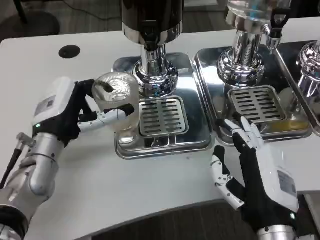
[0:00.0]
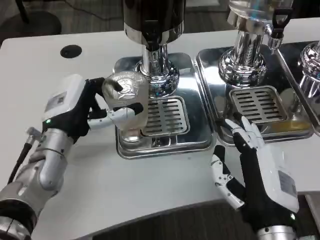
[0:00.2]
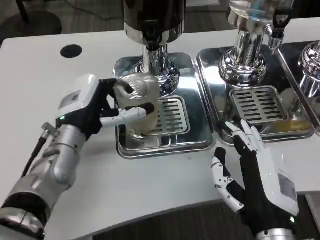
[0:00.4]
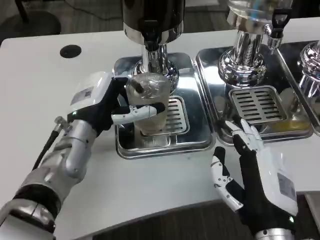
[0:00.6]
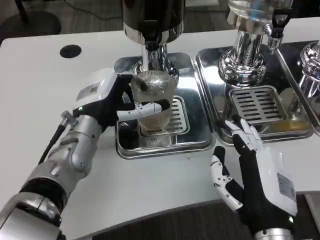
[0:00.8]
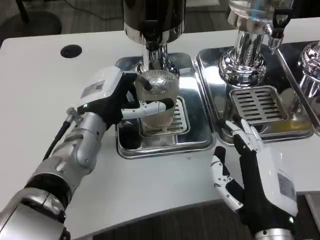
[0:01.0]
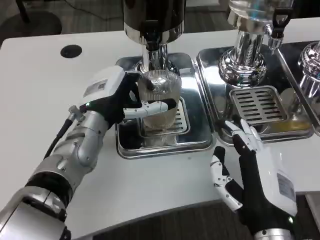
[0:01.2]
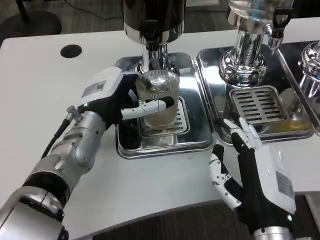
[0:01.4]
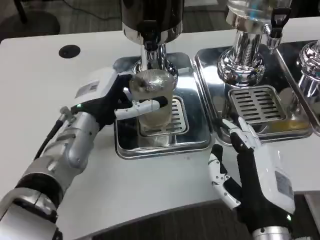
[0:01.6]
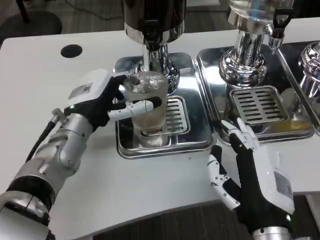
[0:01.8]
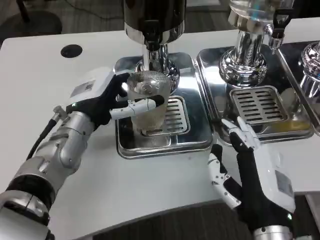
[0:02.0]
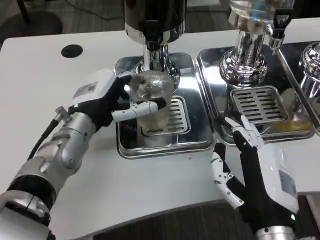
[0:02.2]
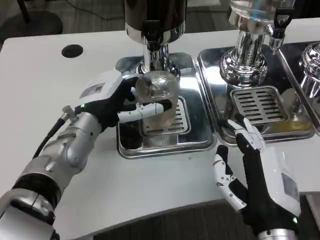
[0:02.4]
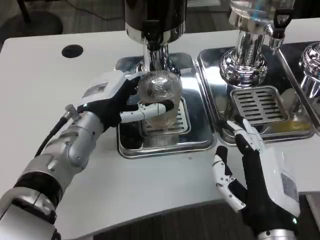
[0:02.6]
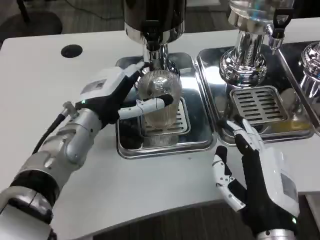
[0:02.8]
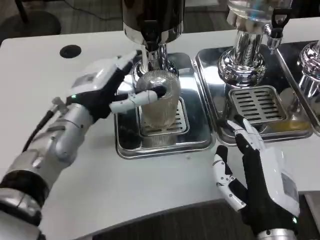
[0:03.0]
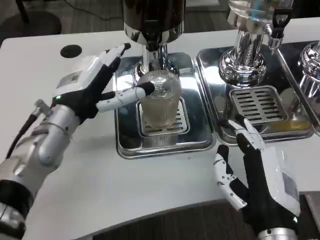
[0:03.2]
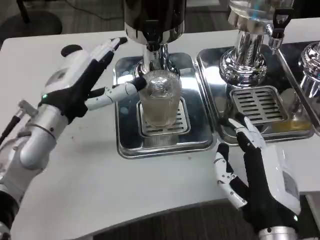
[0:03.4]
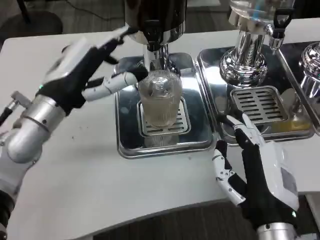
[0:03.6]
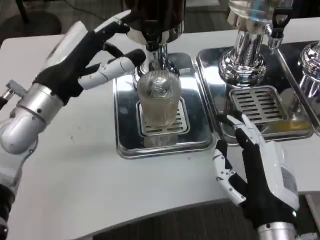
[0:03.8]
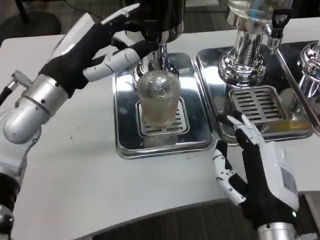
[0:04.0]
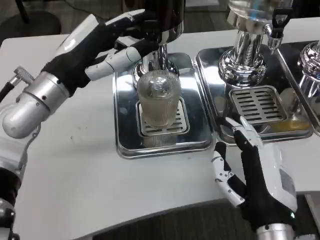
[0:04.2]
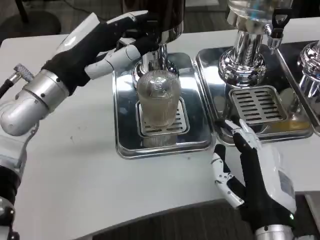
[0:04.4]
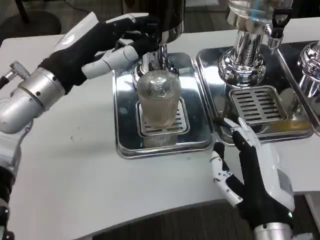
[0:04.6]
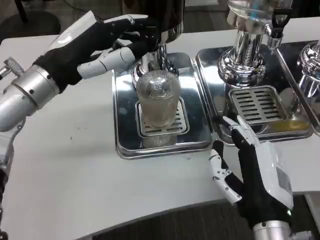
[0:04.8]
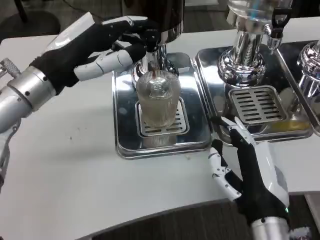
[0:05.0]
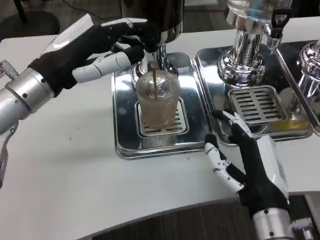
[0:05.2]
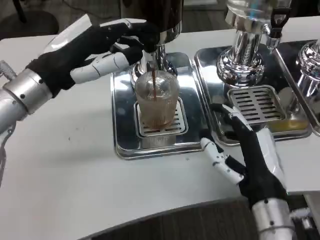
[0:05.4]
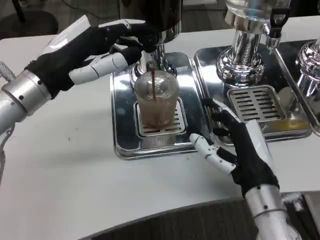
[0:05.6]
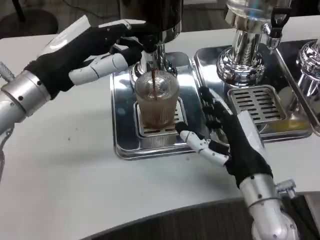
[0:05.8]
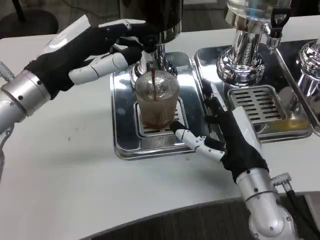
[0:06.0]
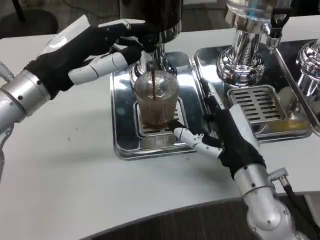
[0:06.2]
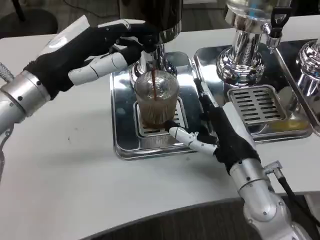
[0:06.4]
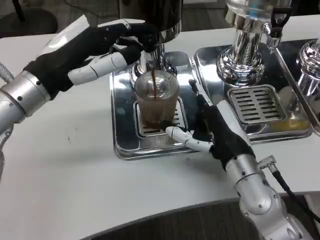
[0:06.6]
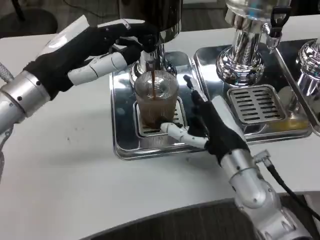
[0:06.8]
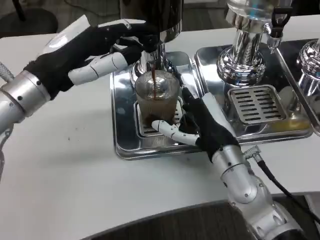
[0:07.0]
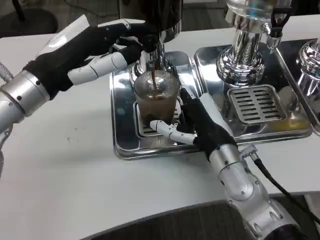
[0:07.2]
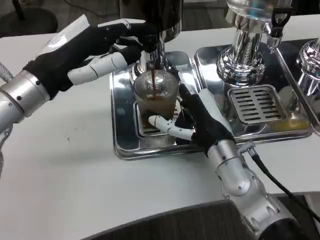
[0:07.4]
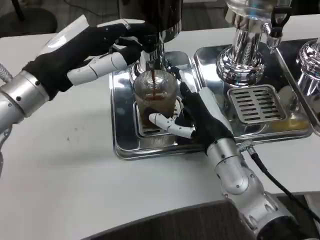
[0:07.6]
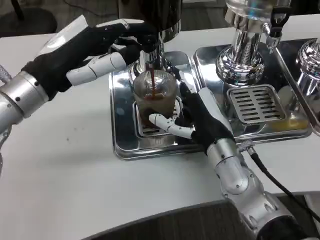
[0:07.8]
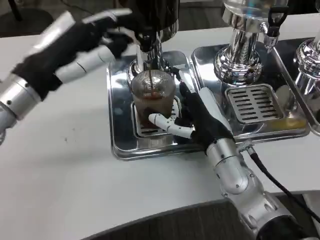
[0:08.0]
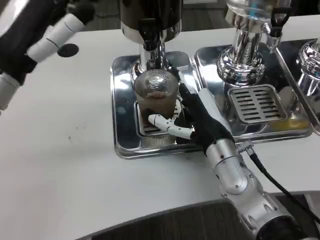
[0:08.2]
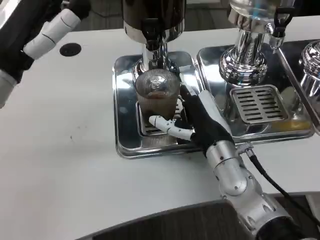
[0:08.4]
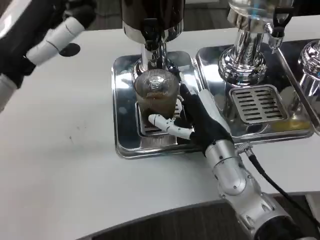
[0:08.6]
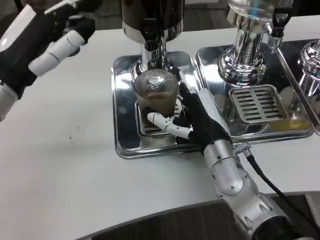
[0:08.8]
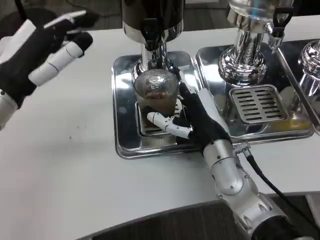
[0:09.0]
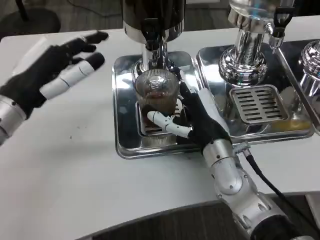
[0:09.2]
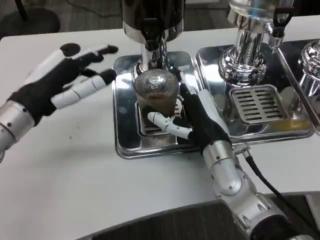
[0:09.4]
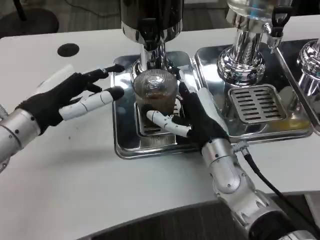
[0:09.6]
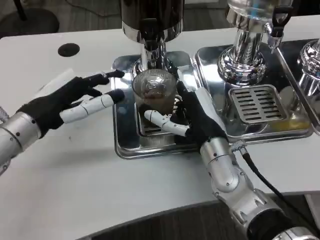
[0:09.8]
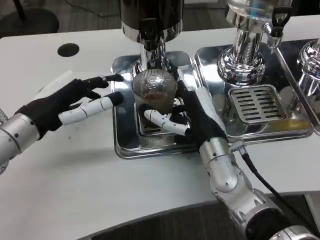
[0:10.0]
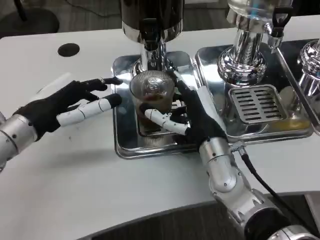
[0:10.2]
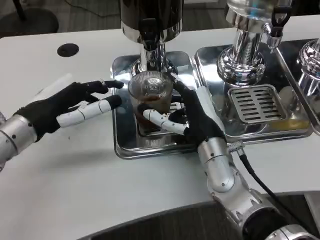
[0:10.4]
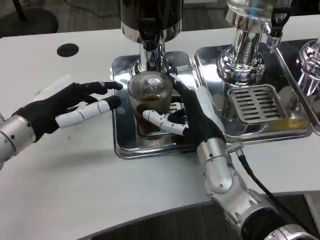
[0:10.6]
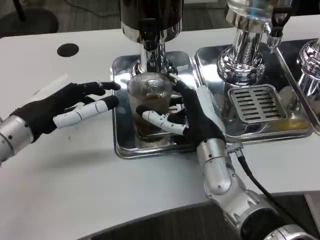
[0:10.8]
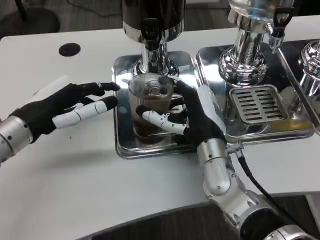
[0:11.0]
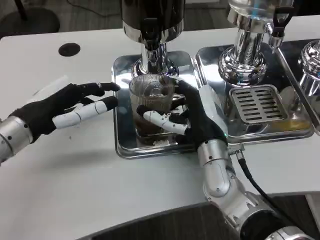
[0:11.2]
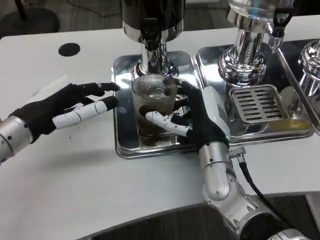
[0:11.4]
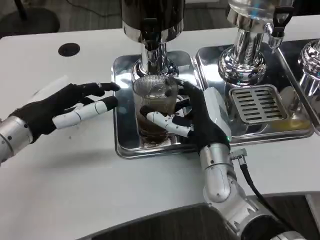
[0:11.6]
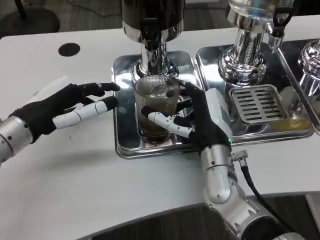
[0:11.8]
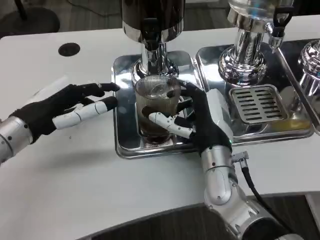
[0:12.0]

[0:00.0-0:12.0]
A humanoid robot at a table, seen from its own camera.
Task of the whole recording: Grasp the cup under the faucet to collect the drink, then remove the cup.
0:00.0 to 0:01.6: The left hand changes place by about 5 cm.
0:03.0 to 0:04.4: The left hand travels upward by some 5 cm.
0:04.4 to 0:06.0: The right hand is displaced forward by approximately 10 cm.
0:06.0 to 0:07.6: The right hand moves forward, some 5 cm.
0:10.4 to 0:12.0: The hands move only a little.

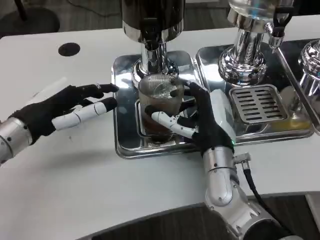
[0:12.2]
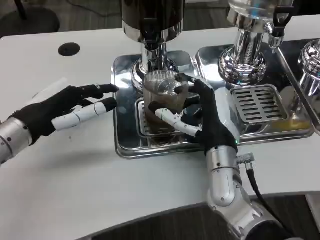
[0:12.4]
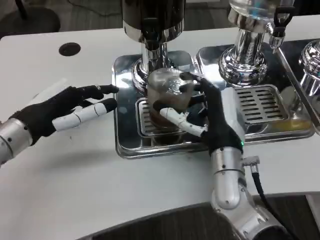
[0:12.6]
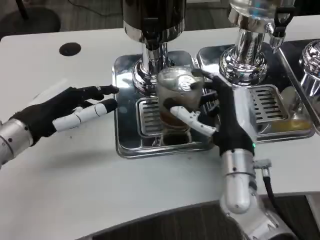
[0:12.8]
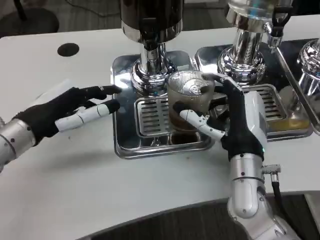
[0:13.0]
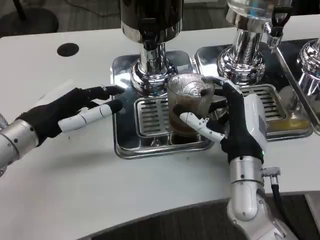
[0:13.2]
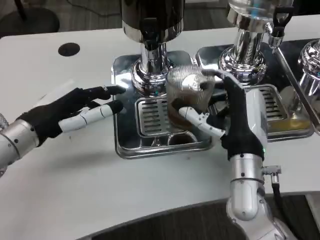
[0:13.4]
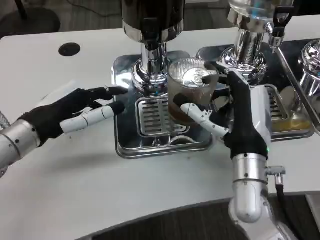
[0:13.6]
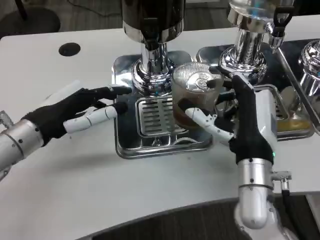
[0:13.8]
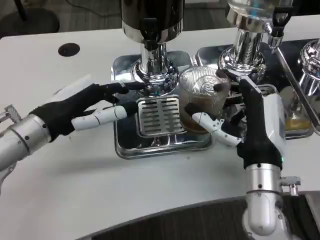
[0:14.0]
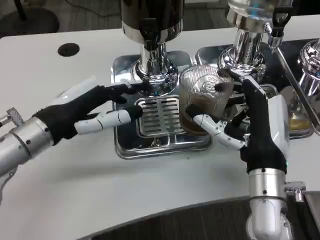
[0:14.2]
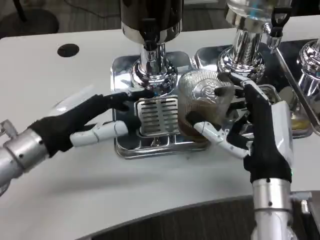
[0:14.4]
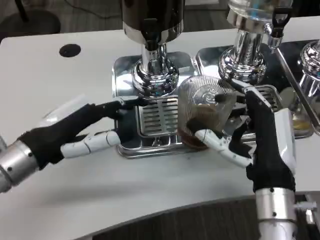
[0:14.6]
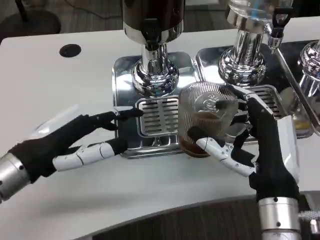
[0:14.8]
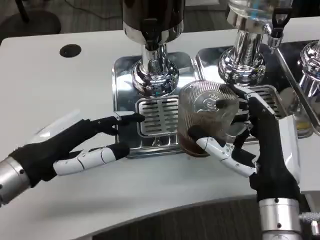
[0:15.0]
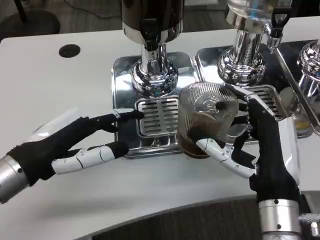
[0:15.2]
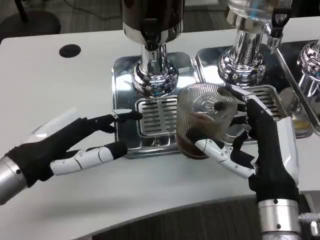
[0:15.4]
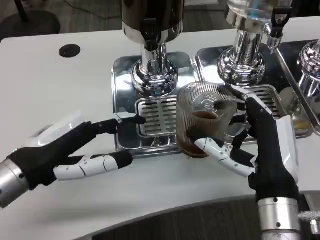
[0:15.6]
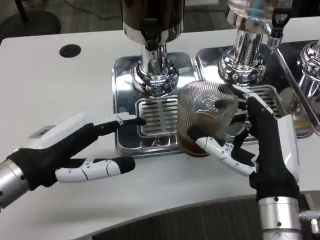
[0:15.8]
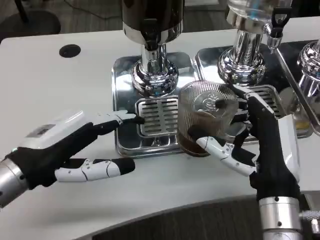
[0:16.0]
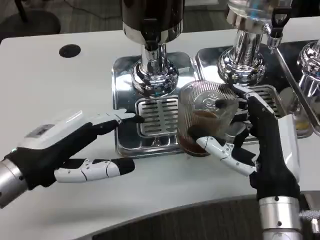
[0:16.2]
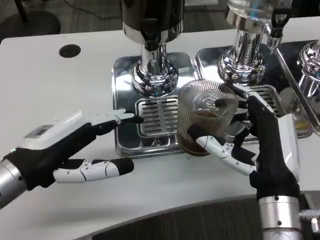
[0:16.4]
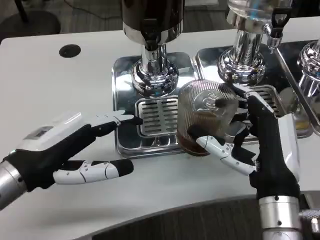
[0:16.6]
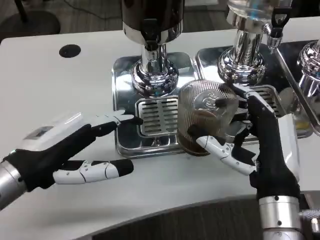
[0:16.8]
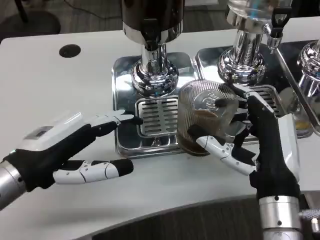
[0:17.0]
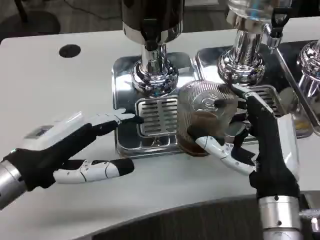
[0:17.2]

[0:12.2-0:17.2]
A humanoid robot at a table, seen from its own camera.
Task of the whole recording: Grasp the cup under the faucet to collect the drink, then remove the cup.
0:12.2 to 0:13.8: The right hand changes place by some 5 cm.
0:13.8 to 0:15.6: Both hands travel together backward, roughly 5 cm.
0:15.6 to 0:17.2: The hands move only a little.

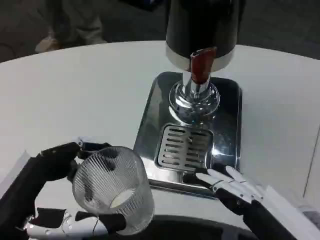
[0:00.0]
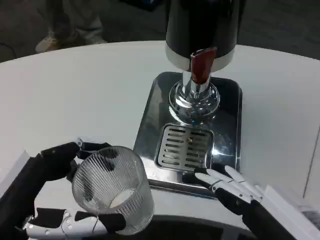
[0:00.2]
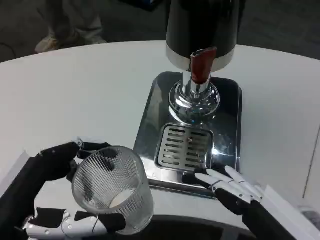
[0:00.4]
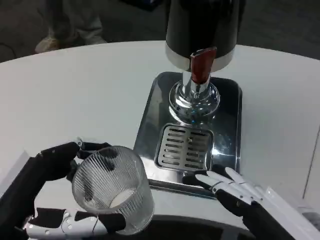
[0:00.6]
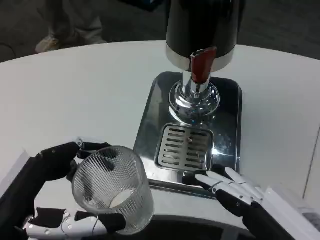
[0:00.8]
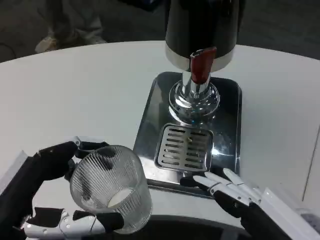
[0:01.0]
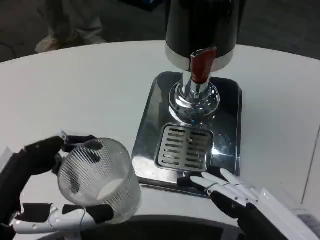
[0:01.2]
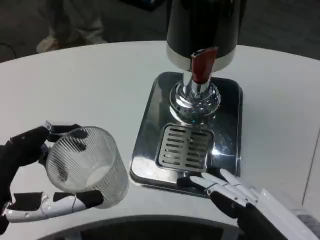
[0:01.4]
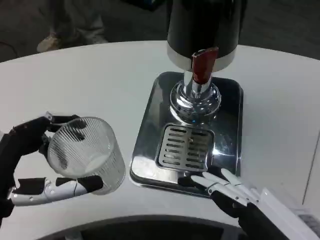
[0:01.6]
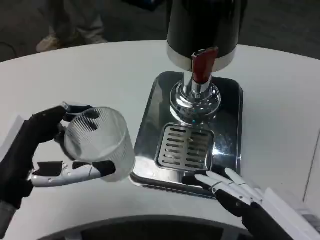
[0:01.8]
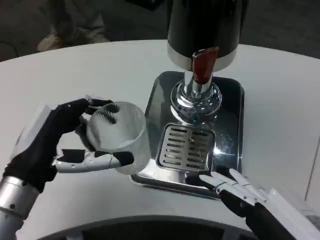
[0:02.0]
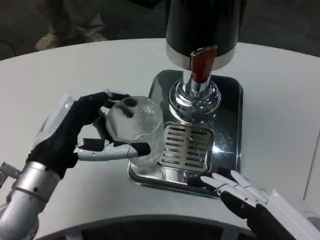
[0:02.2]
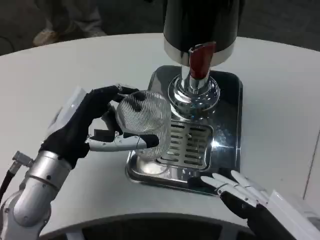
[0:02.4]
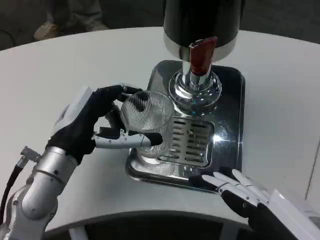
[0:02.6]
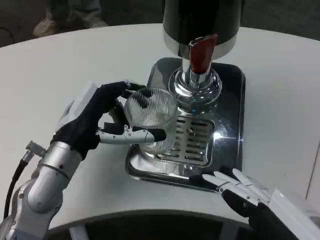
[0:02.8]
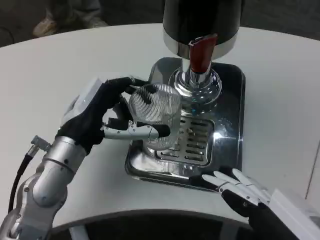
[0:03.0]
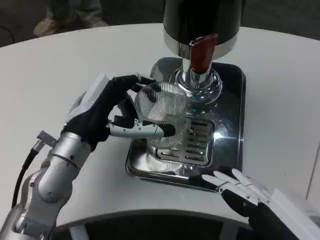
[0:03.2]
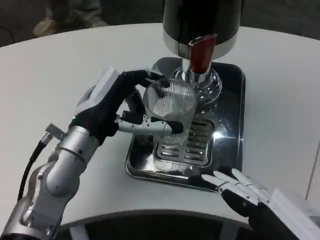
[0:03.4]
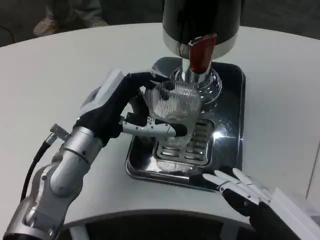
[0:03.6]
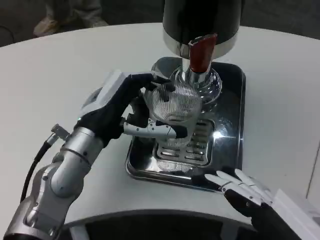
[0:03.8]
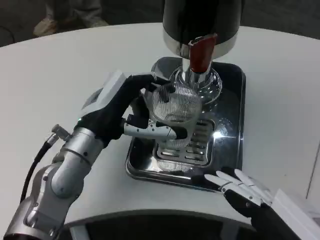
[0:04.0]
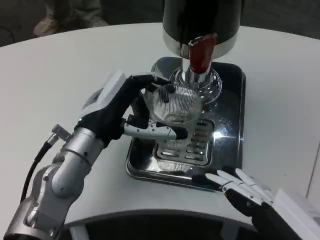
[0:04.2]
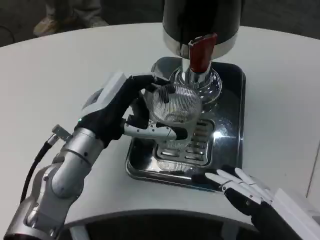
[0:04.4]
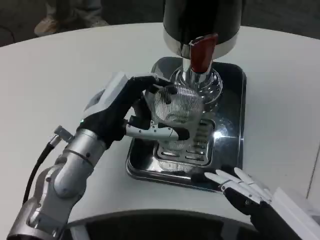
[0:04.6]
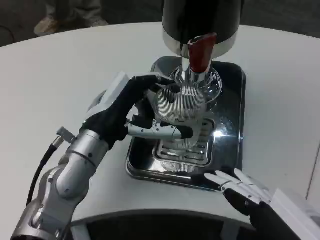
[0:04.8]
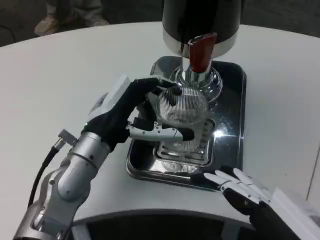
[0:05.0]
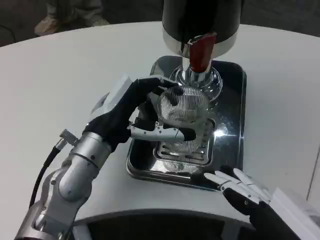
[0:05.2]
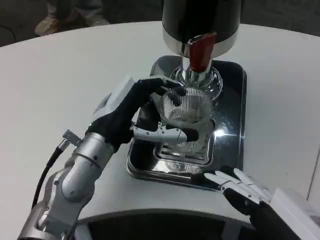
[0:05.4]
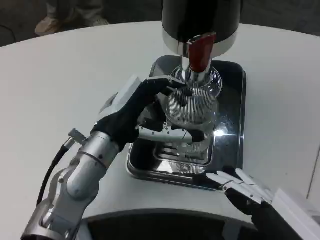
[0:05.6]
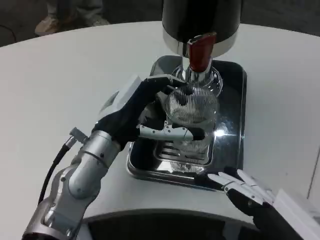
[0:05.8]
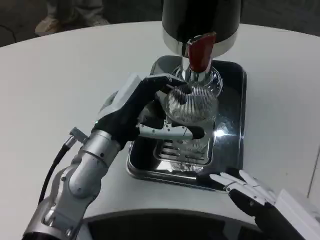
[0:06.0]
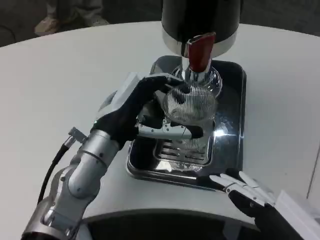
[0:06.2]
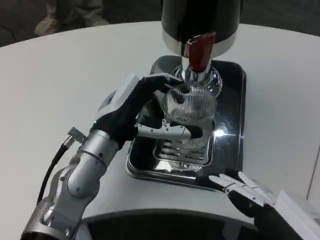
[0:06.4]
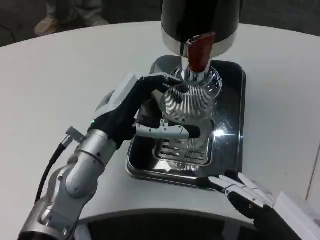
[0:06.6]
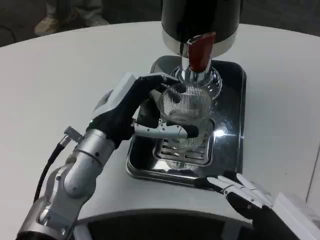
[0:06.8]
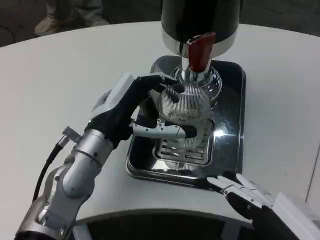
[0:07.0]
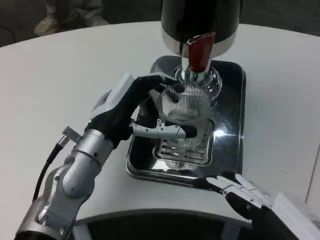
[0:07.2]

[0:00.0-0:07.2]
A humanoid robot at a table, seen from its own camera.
Task of the whole recording: Grasp the cup under the faucet to collect the drink, then remove the cup.
0:01.4 to 0:02.8: The left hand is displaced forward and to the right by about 15 cm.
0:05.8 to 0:07.2: The two hands keep their place.
